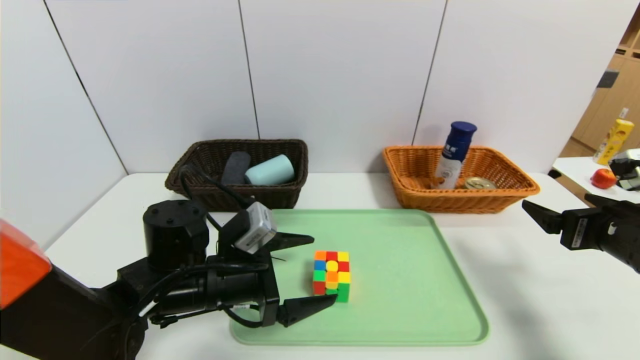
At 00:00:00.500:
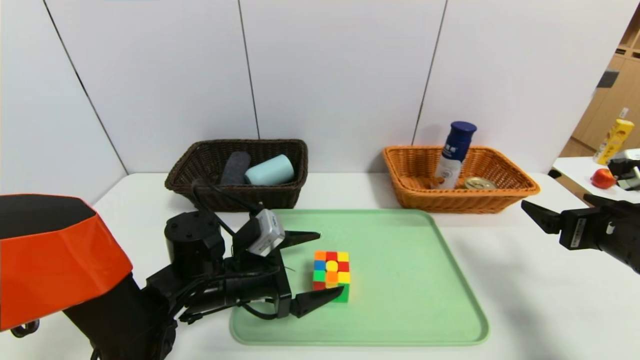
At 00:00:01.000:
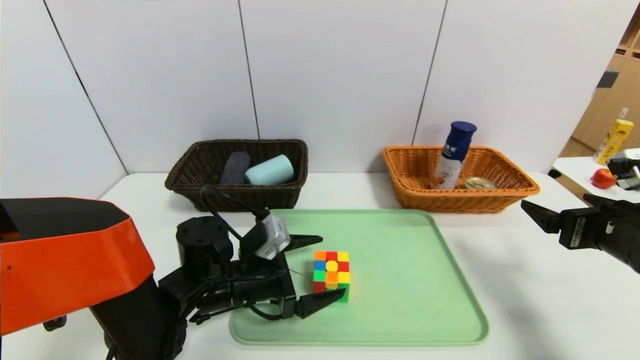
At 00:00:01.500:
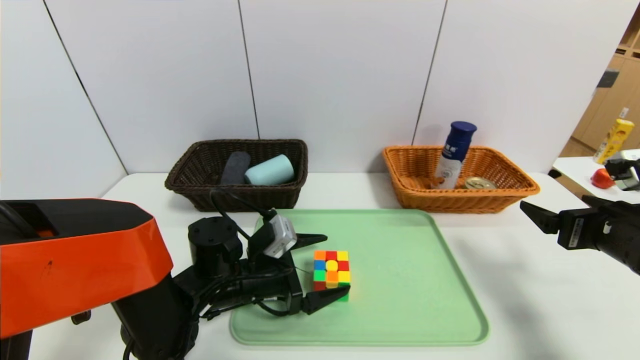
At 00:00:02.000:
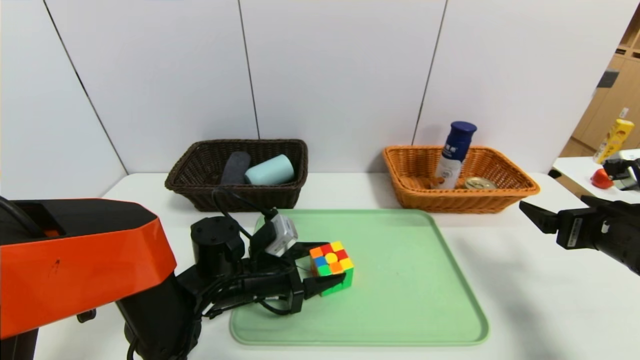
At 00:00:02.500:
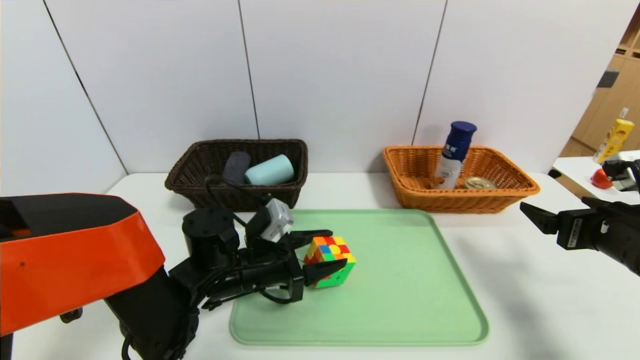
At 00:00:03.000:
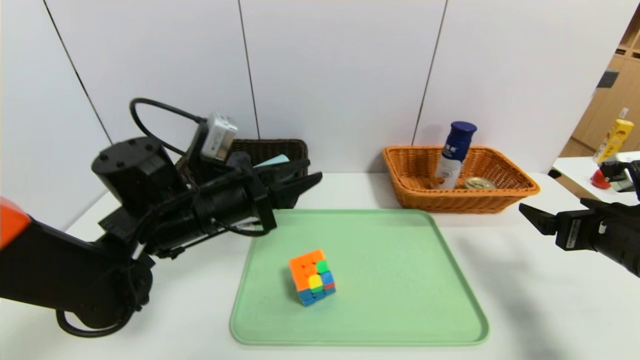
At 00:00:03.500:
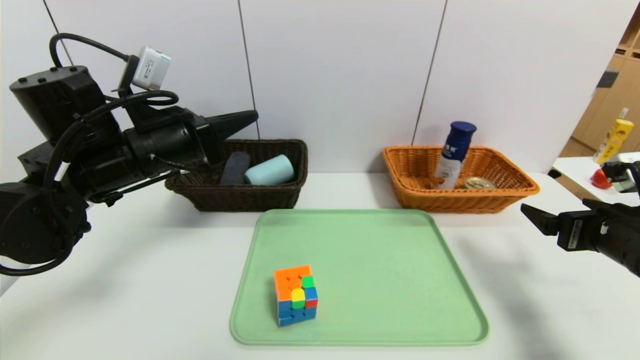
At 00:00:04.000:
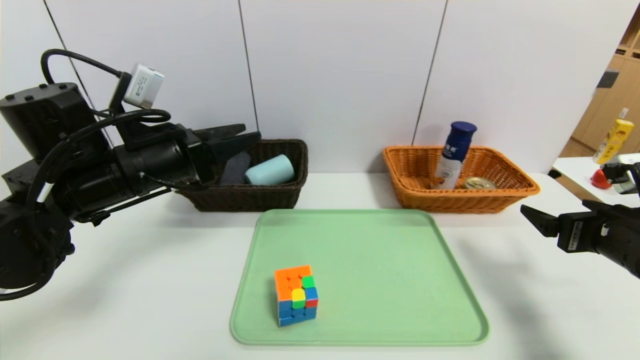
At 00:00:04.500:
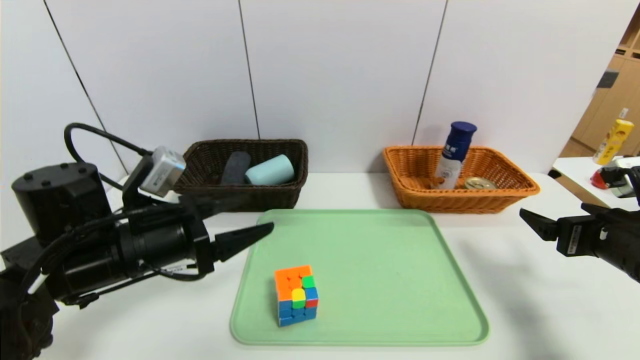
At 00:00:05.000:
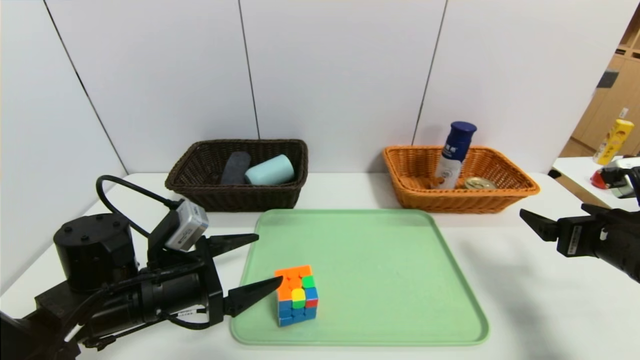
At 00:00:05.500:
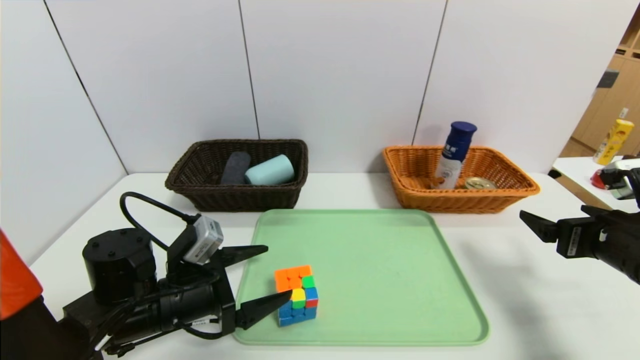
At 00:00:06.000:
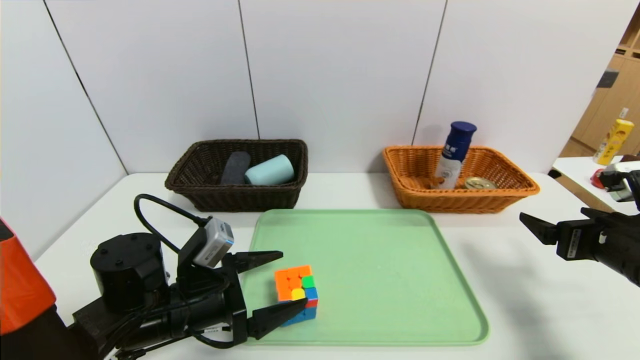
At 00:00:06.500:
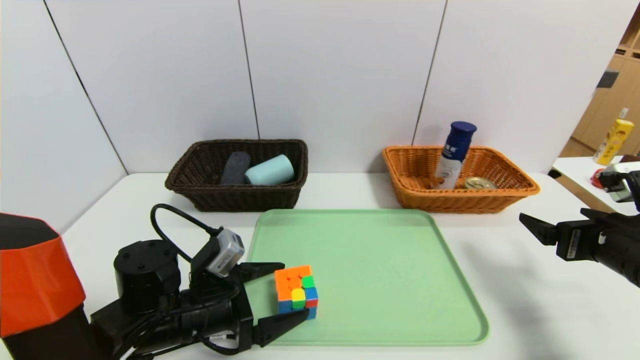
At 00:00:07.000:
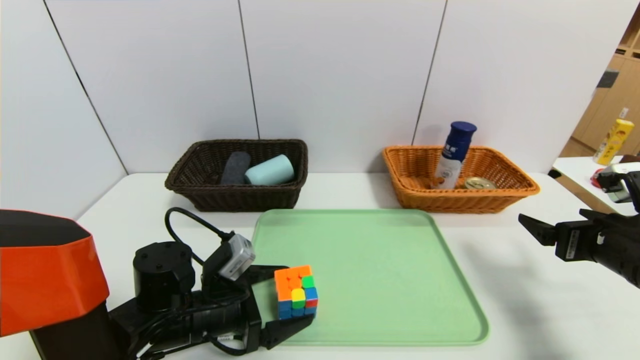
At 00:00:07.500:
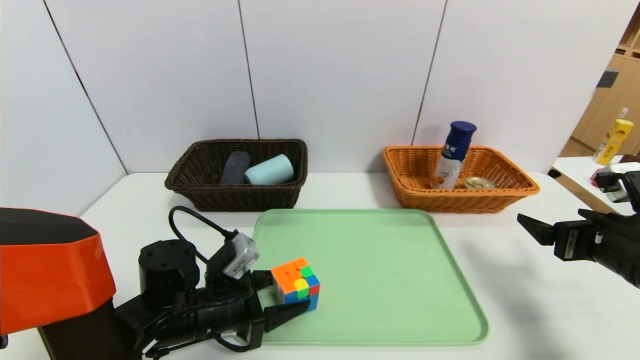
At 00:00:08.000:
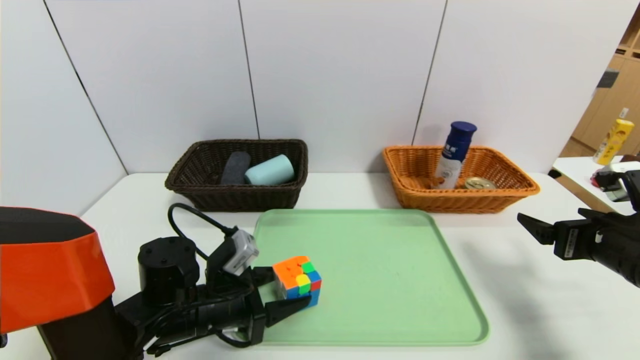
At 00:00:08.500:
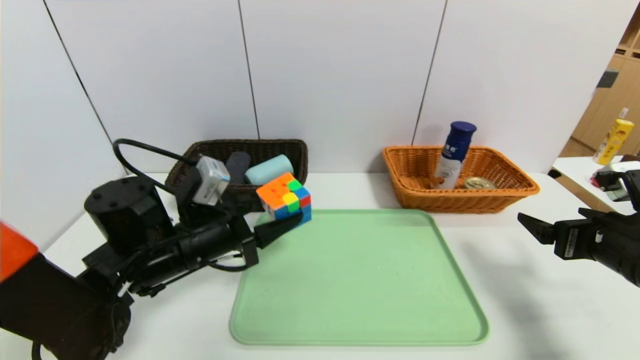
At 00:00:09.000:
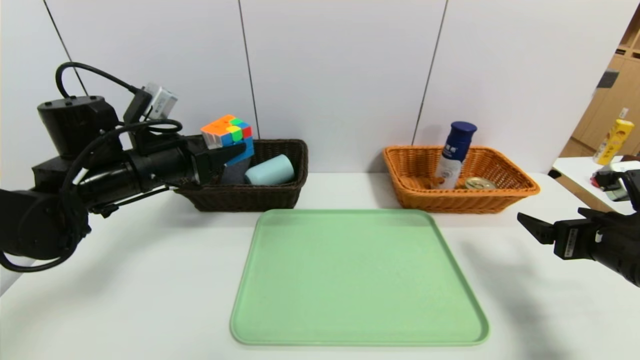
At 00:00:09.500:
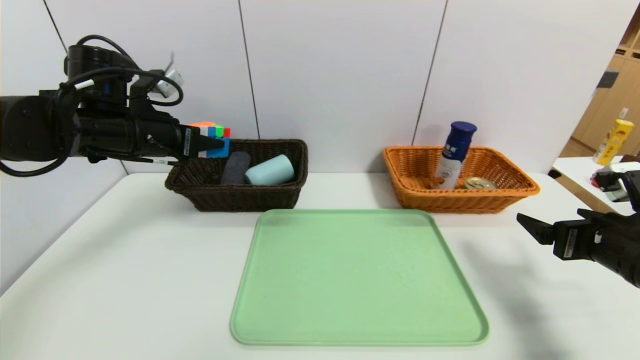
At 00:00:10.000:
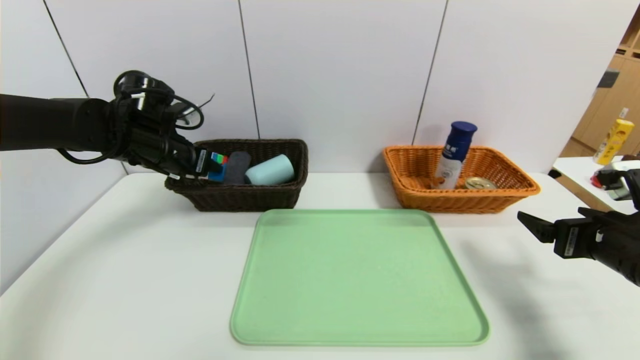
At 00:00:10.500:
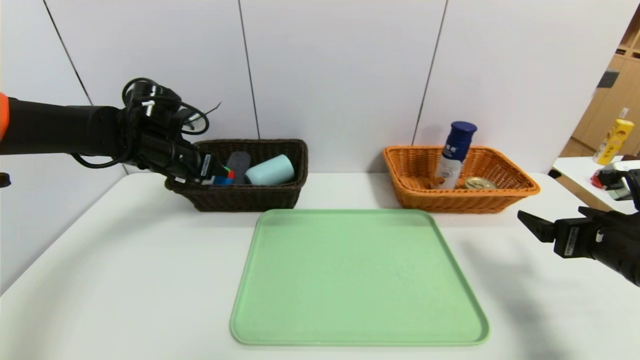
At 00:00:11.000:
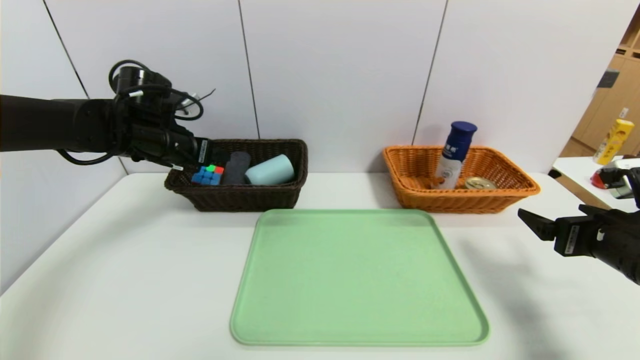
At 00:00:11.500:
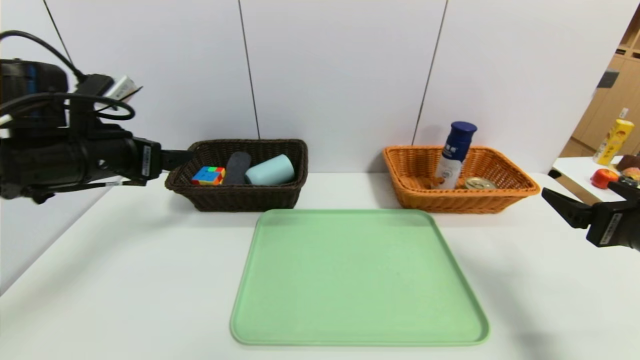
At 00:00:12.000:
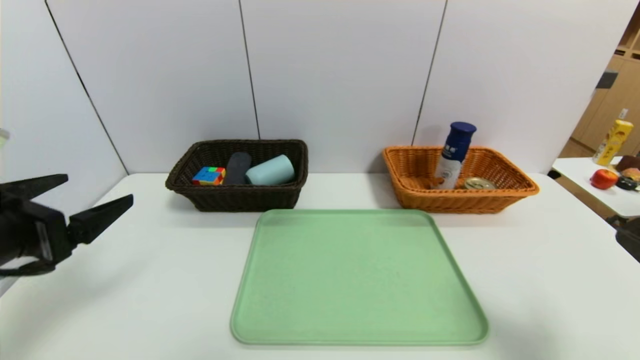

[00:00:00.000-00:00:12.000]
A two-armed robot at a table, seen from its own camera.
Task of the whole recording: place the food in the right basket with the right gripper, and place the non food items in the left basket with the left gripper.
Step, 00:00:00.000 to 00:00:11.500: Grasp the rubiks cube and put it in the left basket.
00:00:00.000 to 00:00:02.000: The left gripper moves downward, about 5 cm, and closes.
00:00:02.000 to 00:00:04.000: The left gripper goes approximately 20 cm upward and to the left, and closes, then reopens.
00:00:04.000 to 00:00:06.000: The left gripper shifts roughly 15 cm downward and backward, and opens its fingers.
00:00:06.000 to 00:00:08.000: The left gripper closes up.
00:00:08.000 to 00:00:10.000: The left gripper heads forward, upward and to the left, covering about 25 cm.
00:00:10.000 to 00:00:12.000: The right gripper shifts some 15 cm backward and upward. Meanwhile the left gripper is displaced backward by roughly 25 cm, and opens.

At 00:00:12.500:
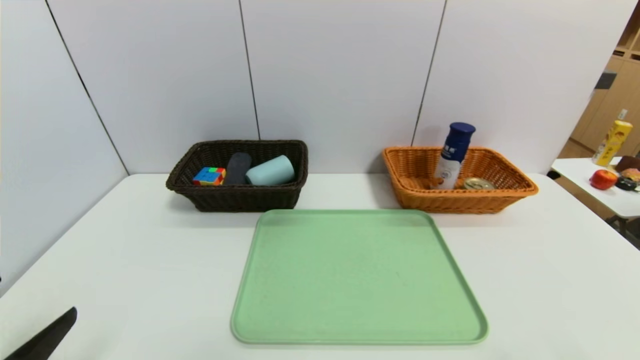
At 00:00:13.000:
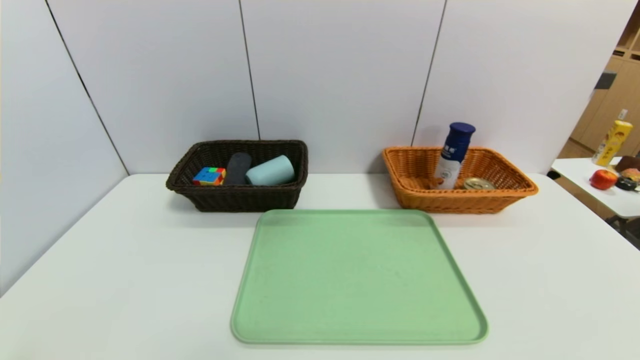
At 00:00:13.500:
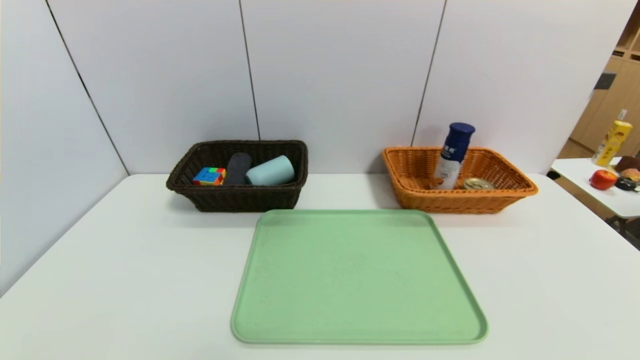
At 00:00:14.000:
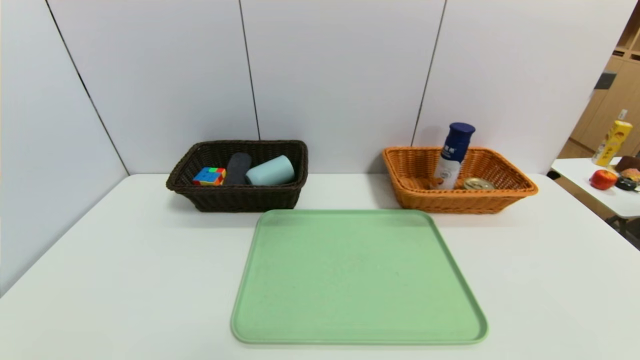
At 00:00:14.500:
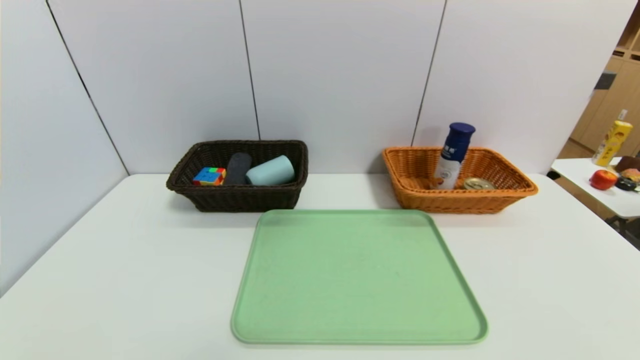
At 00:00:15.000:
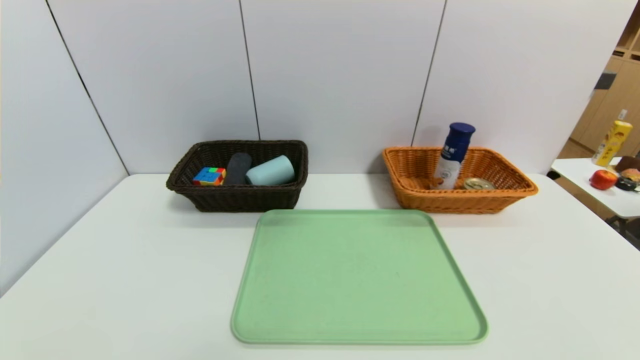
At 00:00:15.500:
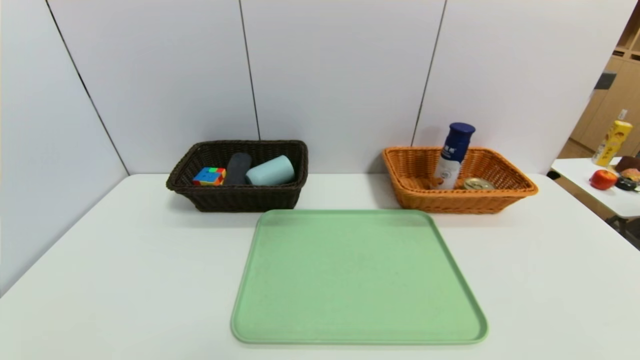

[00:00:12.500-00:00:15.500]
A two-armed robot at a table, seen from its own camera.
Task of the whole recording: place the food in the right basket with the right gripper, and place the non food items in the left basket with the left gripper.
00:00:12.500 to 00:00:14.000: The left gripper heads downward and backward, covering some 10 cm.
